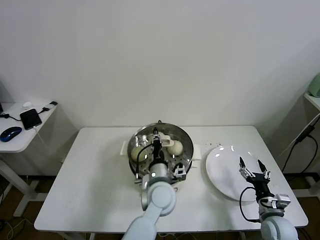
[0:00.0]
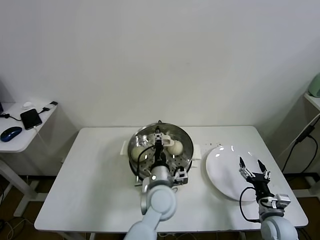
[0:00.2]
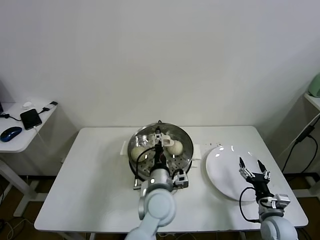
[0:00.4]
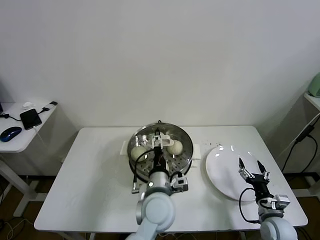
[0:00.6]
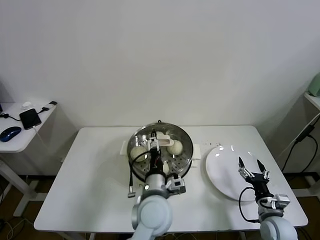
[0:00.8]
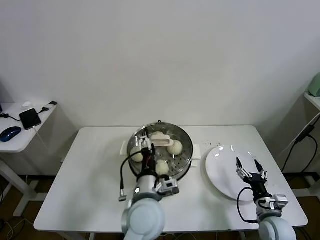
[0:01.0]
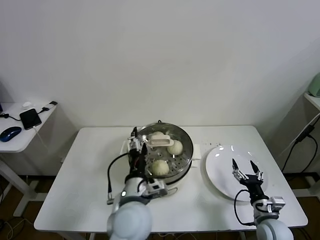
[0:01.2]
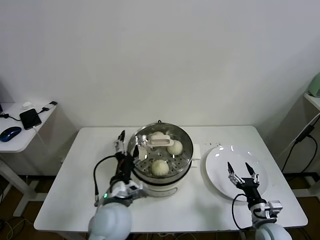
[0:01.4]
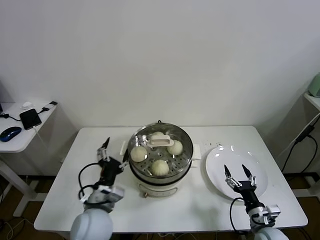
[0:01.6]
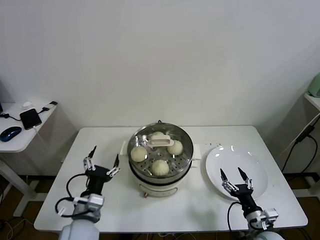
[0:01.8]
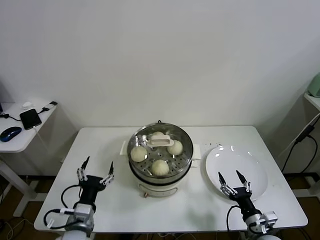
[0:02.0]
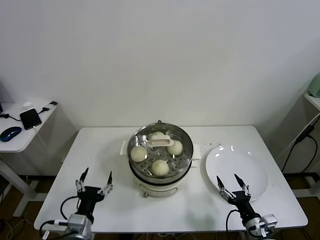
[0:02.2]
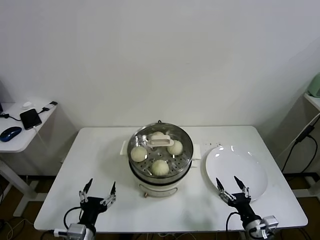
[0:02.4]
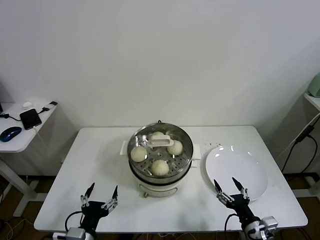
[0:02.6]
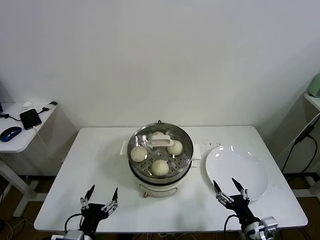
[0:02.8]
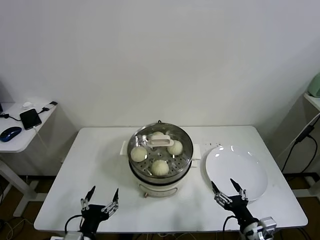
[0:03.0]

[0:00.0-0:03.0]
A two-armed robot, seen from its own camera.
Task of the whole recording: take steamed baozi put them in steamer.
0:00.0 to 0:01.6: The left gripper shifts roughly 20 cm to the left and backward, and opens up.
0:01.6 to 0:03.0: The left gripper moves backward, to the left and downward, about 15 cm; the right gripper is displaced backward and upward by some 10 cm.

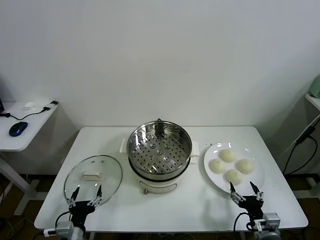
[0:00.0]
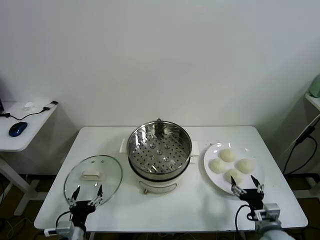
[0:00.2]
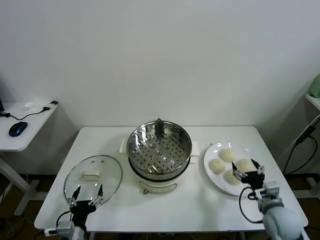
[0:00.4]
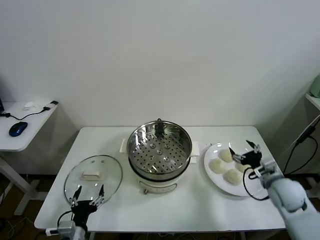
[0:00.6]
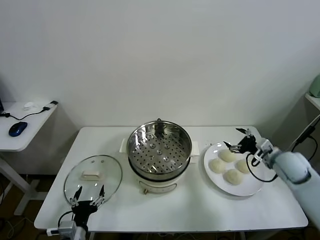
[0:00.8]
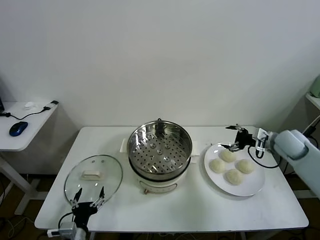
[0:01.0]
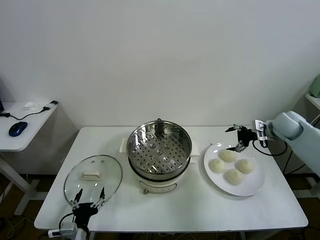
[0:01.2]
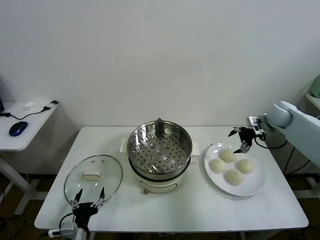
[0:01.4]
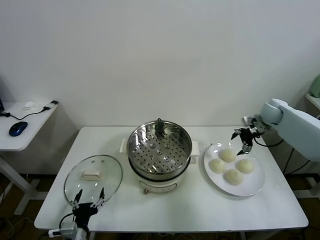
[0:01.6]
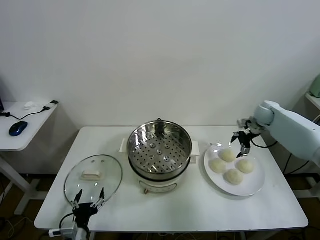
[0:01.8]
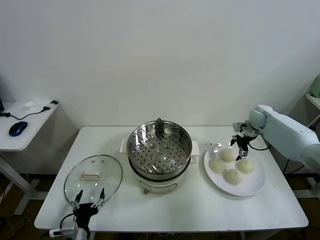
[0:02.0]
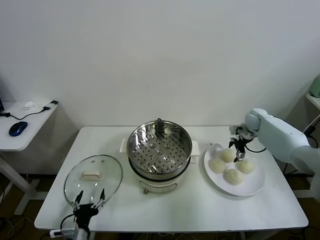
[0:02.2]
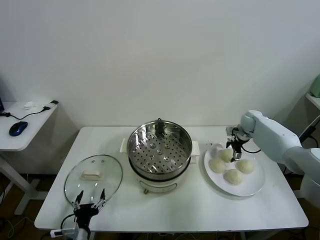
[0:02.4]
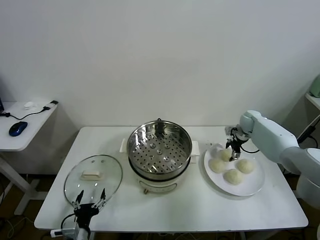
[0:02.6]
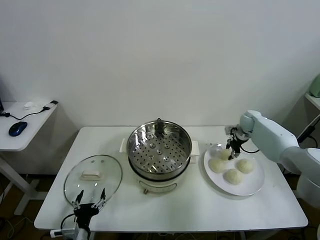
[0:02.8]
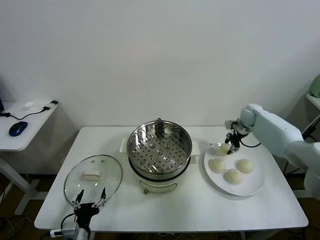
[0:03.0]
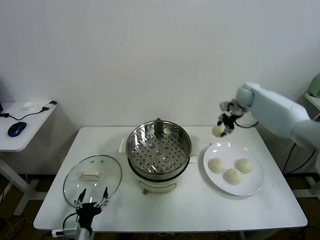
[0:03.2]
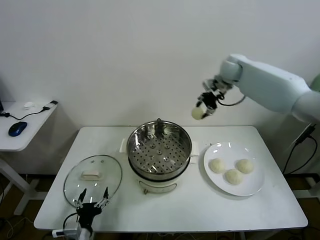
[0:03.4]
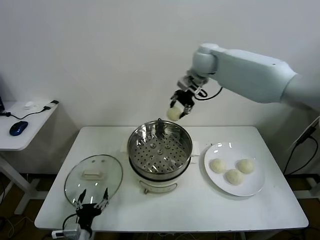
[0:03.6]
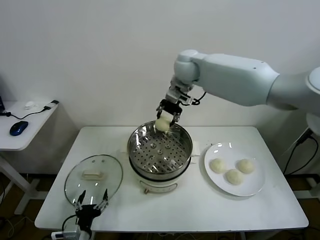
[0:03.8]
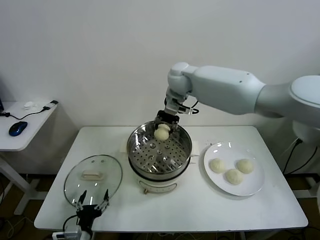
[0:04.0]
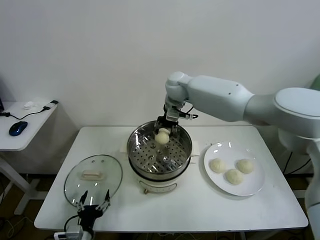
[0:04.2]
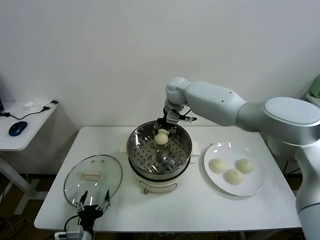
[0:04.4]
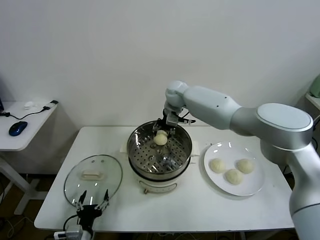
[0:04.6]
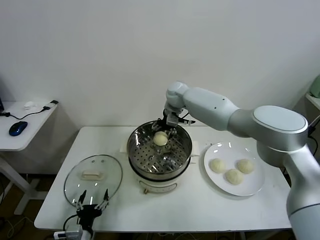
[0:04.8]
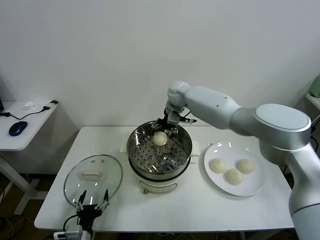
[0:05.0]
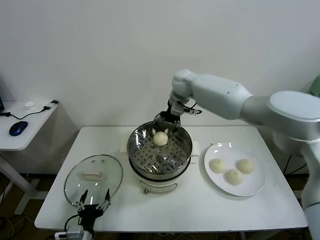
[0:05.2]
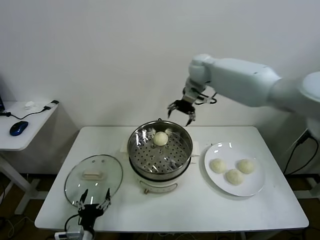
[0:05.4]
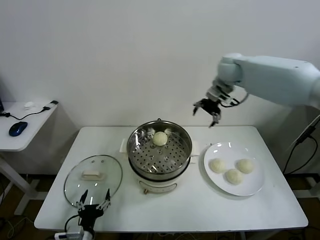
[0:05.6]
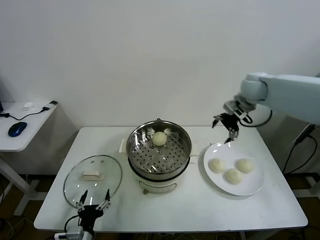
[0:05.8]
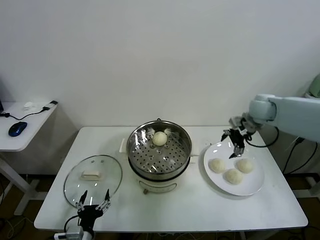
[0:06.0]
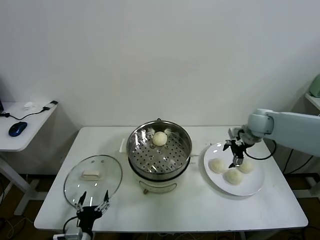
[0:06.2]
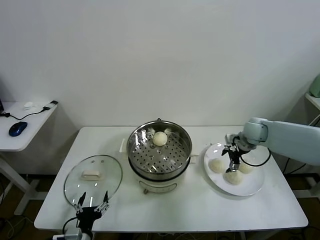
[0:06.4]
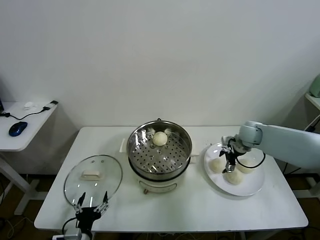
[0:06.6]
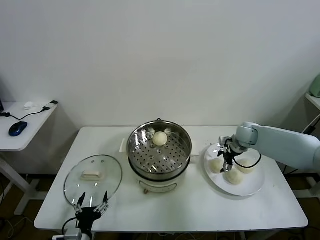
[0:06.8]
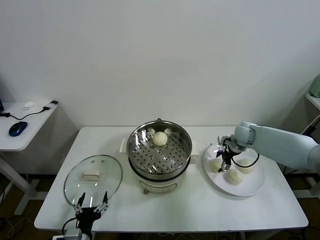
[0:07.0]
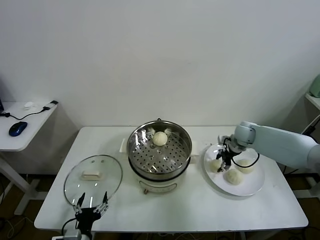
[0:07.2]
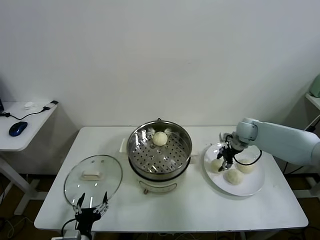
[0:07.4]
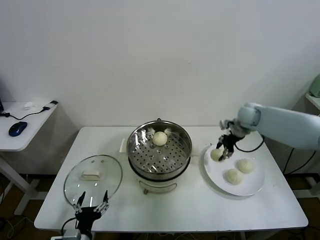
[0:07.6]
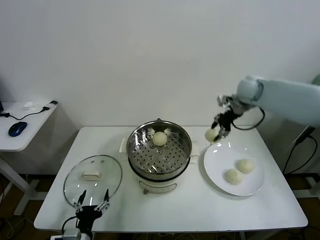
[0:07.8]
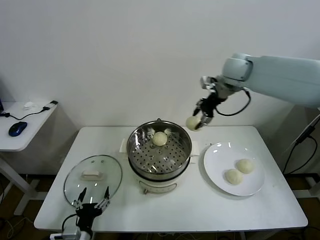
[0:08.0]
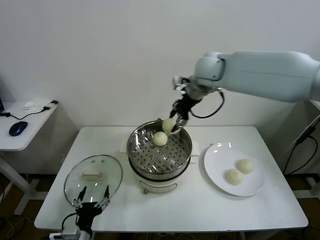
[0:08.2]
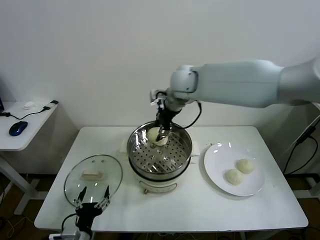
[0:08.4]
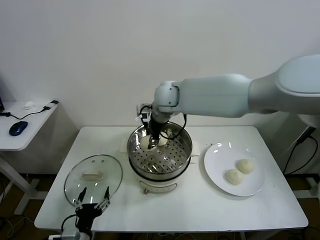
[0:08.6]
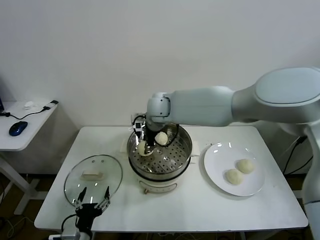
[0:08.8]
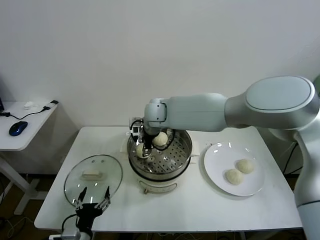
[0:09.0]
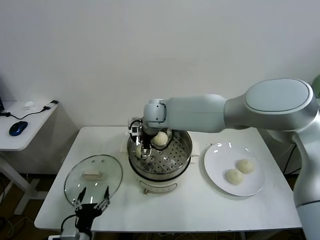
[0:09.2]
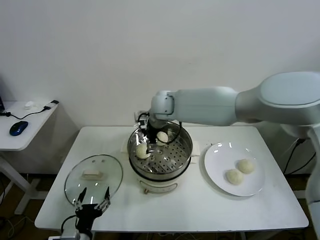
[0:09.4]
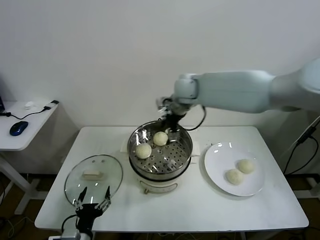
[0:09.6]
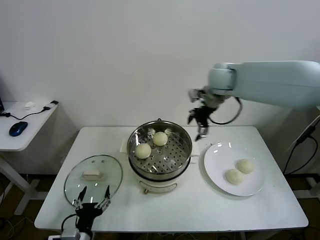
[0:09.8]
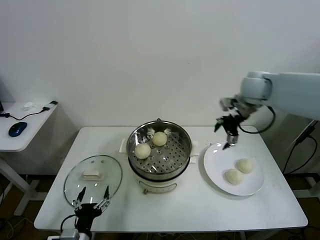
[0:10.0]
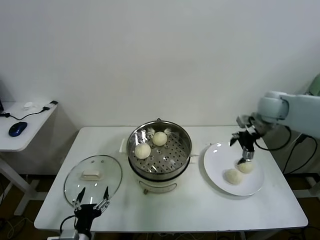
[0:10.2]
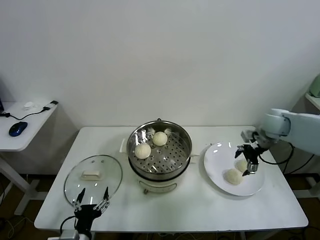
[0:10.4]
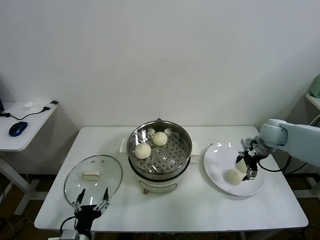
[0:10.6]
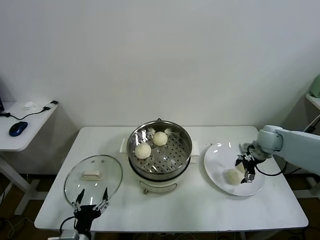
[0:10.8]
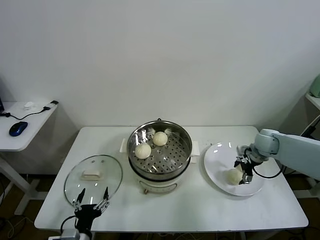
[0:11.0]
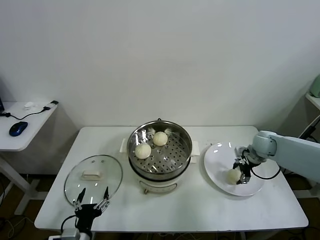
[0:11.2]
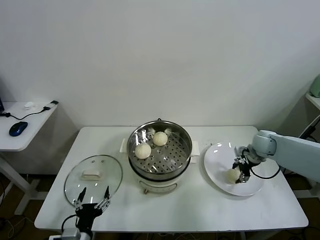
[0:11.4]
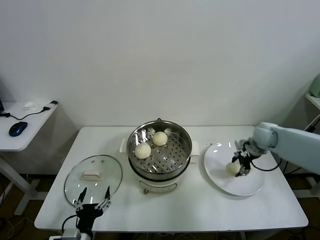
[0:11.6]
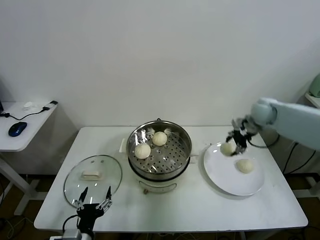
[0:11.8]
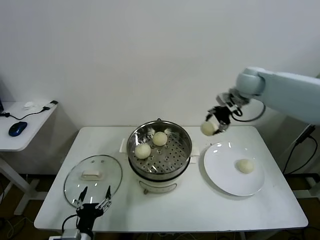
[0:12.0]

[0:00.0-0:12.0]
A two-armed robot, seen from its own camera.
Task of the whole recording: take steamed baozi put them in steamer.
Step, 0:00.0 to 0:02.6: Grasp the baozi in the plate with right gripper.
Step, 0:02.8 to 0:05.0: Place the baozi on the steamer with right gripper.
Step, 0:05.2 to 0:07.2: Grasp the baozi in the plate with right gripper.
Step, 0:07.4 to 0:09.2: Place the baozi on the steamer with right gripper.
Step, 0:09.4 to 0:11.2: Grasp the baozi in the plate with right gripper.
0:01.6 to 0:03.0: The right gripper heads to the left, covering approximately 5 cm, goes downward and returns, approximately 10 cm each way, and closes its fingers.
0:03.0 to 0:04.4: The right gripper travels to the left by approximately 30 cm.
0:04.4 to 0:06.0: The right gripper goes approximately 30 cm to the right, and opens its fingers.
0:06.0 to 0:07.6: The right gripper reaches about 10 cm downward, then returns, and closes its fingers.
0:07.6 to 0:09.0: The right gripper heads to the left, covering about 35 cm, and opens.
0:09.0 to 0:10.4: The right gripper moves to the right, about 40 cm, and opens up.
0:10.4 to 0:12.0: The right gripper is displaced upward, to the left and forward by some 20 cm, and closes up.

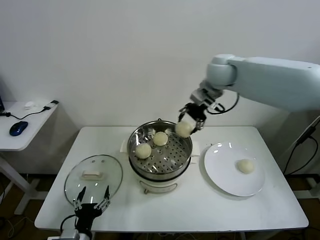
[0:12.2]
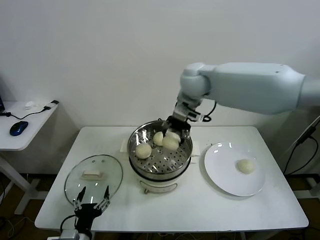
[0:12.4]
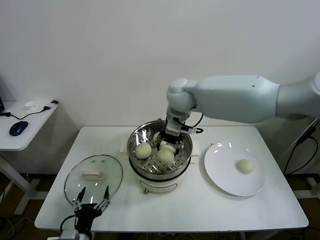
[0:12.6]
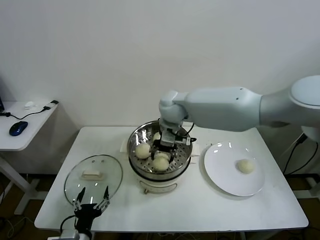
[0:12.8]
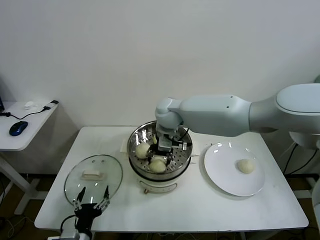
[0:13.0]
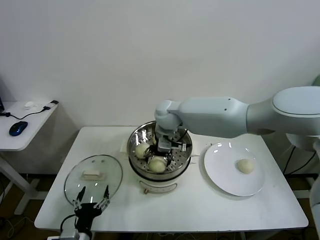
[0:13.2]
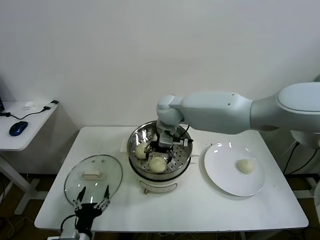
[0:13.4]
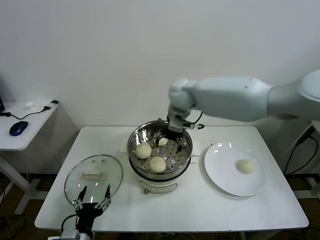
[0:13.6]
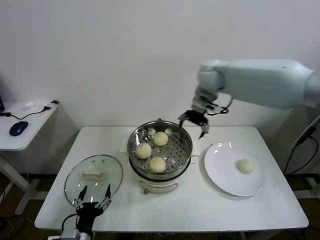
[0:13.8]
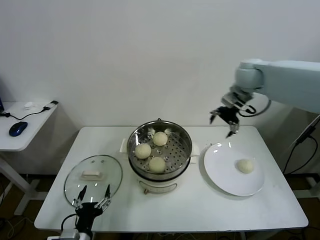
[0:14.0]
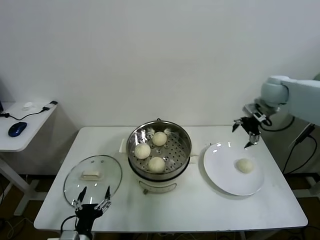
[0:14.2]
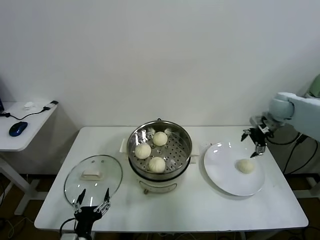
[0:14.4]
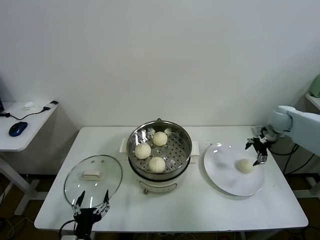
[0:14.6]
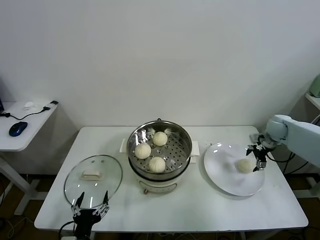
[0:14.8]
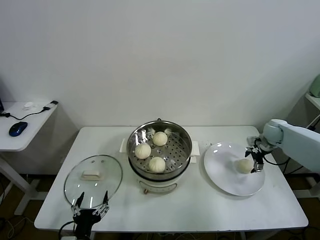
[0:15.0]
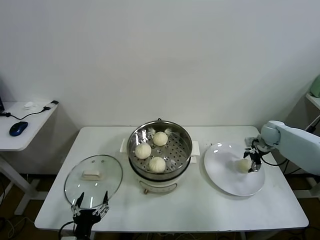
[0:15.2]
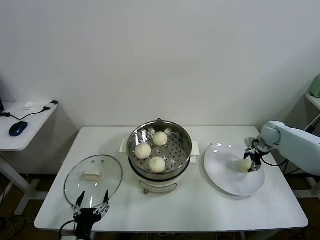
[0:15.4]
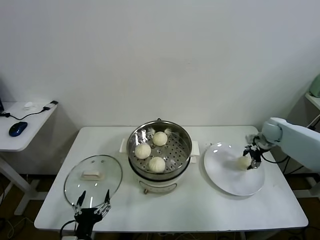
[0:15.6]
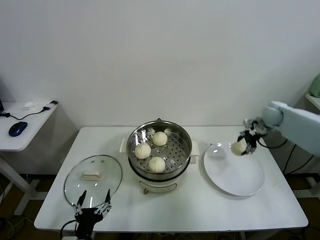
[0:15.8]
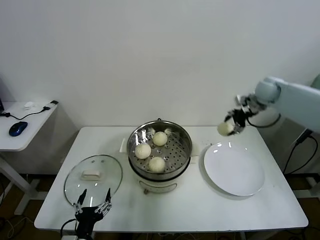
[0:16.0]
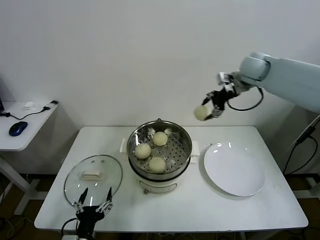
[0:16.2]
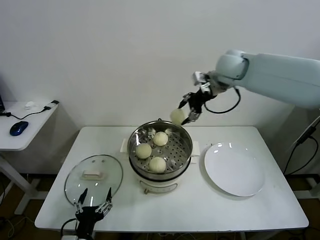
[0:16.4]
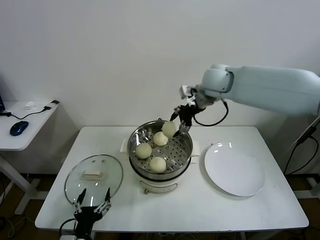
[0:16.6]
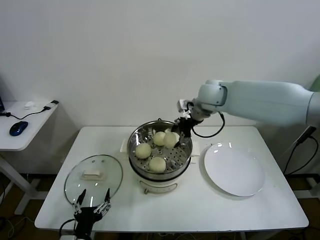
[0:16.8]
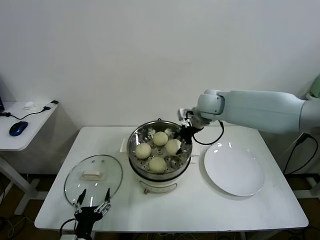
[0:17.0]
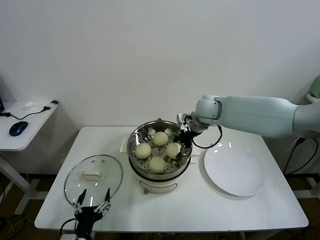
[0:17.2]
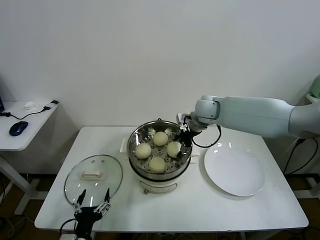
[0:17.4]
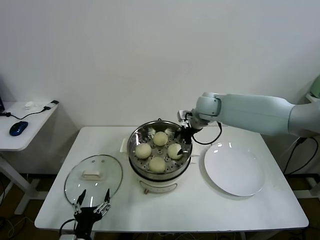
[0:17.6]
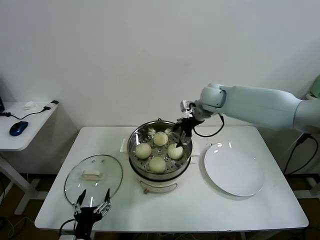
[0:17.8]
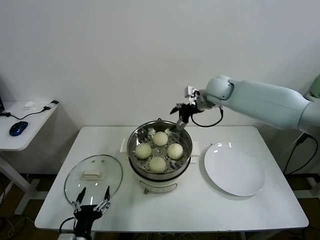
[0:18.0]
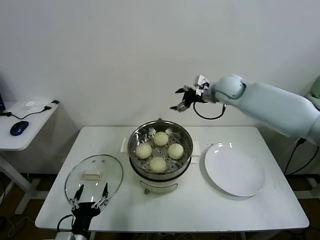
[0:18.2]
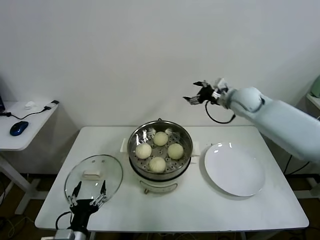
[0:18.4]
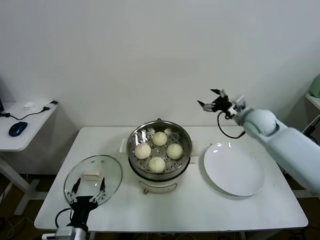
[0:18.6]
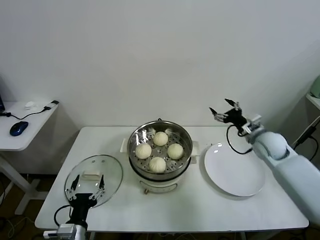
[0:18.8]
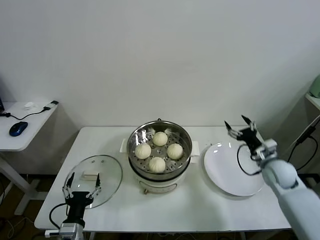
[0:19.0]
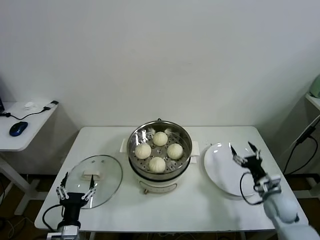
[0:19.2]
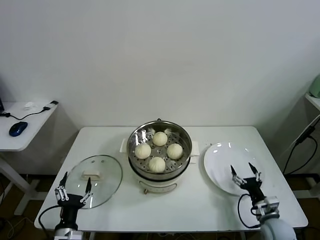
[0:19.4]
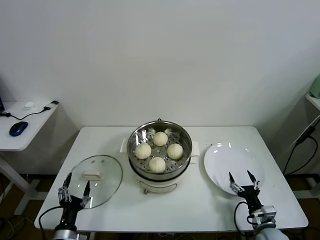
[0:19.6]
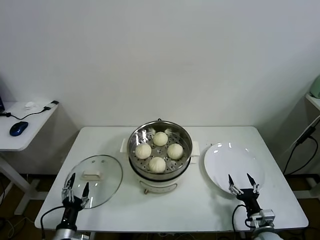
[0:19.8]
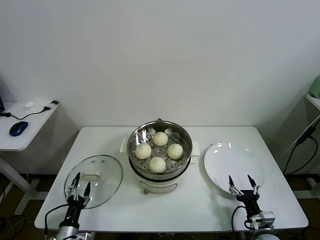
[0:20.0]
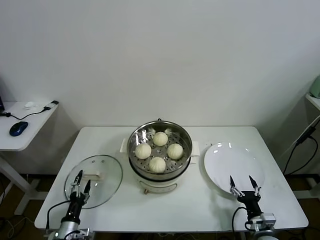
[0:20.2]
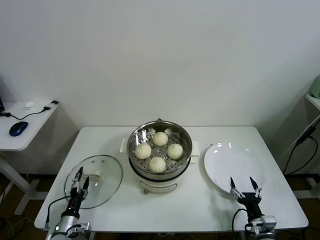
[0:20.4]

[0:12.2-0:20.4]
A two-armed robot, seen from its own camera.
Task of the whole recording: take steamed baozi put them in steamer.
Step, 0:12.2 to 0:13.4: Place the baozi on the steamer with right gripper.
Step, 0:13.6 to 0:15.4: Grasp the baozi in the plate with right gripper.
Step, 0:15.6 to 0:17.6: Place the baozi on the steamer with right gripper.
0:12.2 to 0:13.8: The right gripper reaches some 15 cm to the left, then returns, and opens its fingers.
0:13.8 to 0:15.4: The right gripper heads to the right and downward, covering roughly 40 cm, and closes.
0:15.4 to 0:17.2: The right gripper shifts approximately 30 cm to the left and upward.
0:17.2 to 0:18.8: The right gripper moves to the right, downward and backward, some 25 cm, and opens.
0:18.8 to 0:20.4: The right gripper moves backward and downward, about 35 cm. The left gripper moves downward, to the left and forward, approximately 20 cm.
